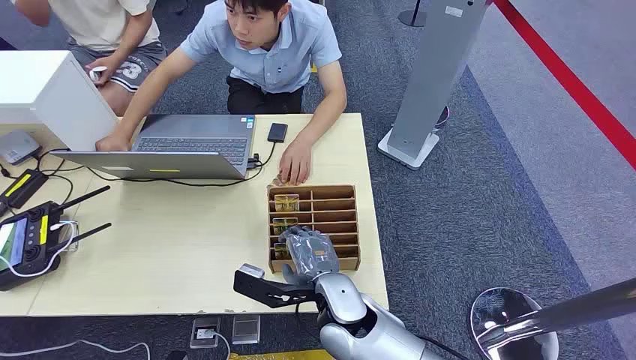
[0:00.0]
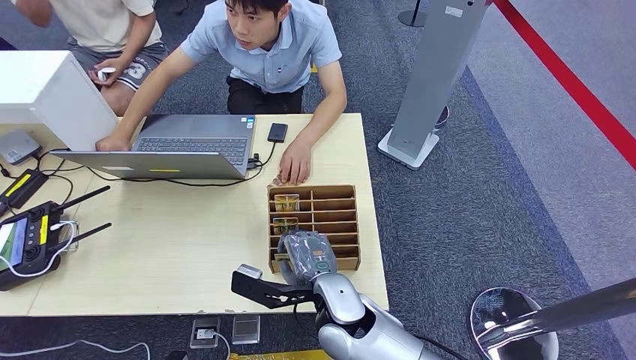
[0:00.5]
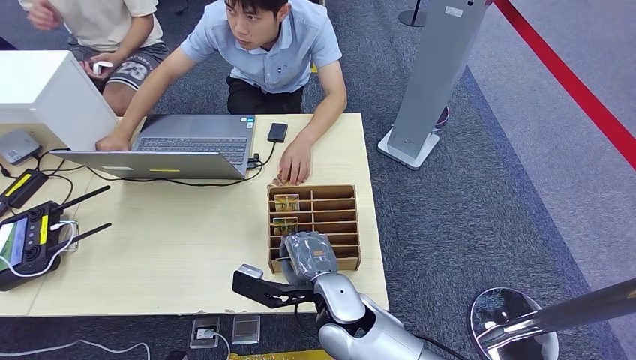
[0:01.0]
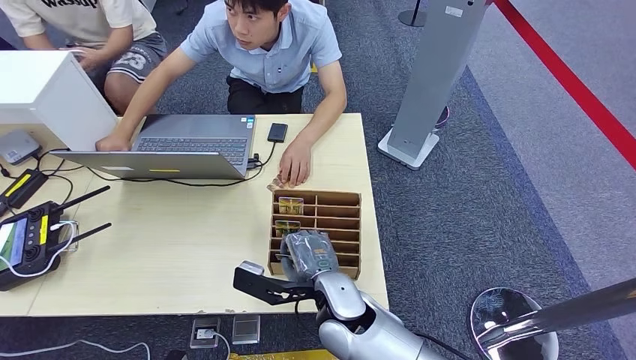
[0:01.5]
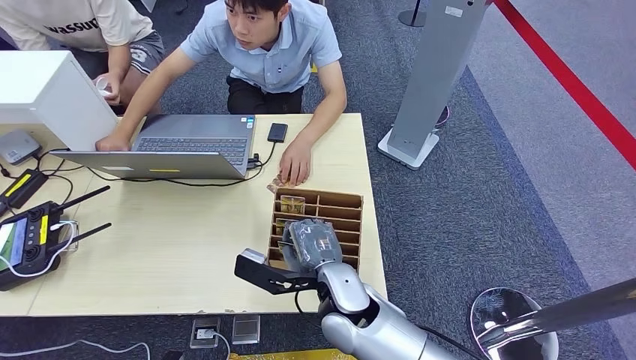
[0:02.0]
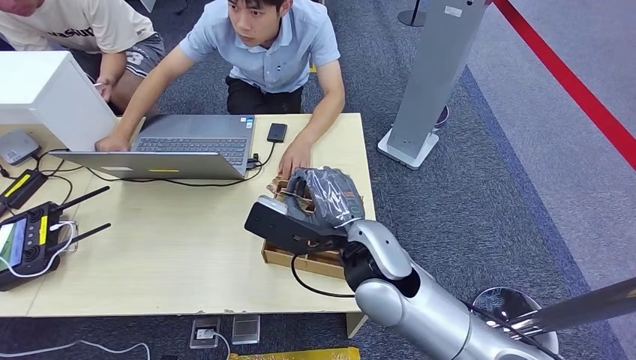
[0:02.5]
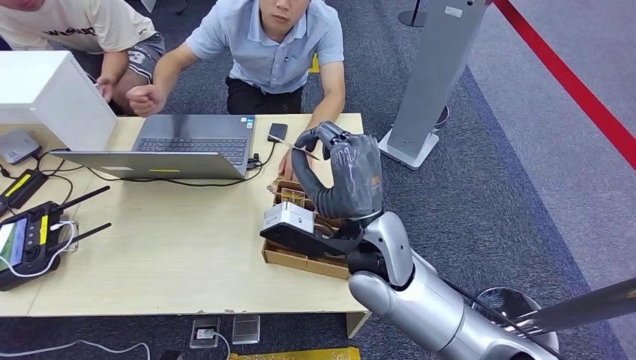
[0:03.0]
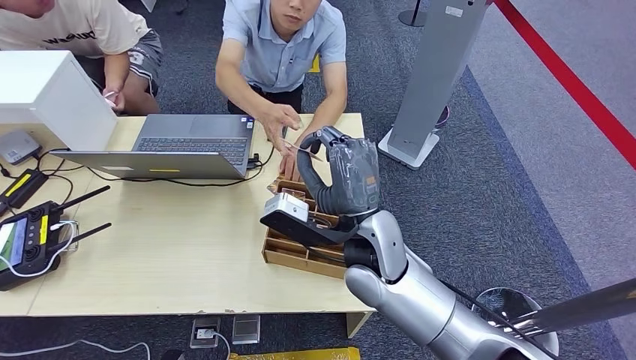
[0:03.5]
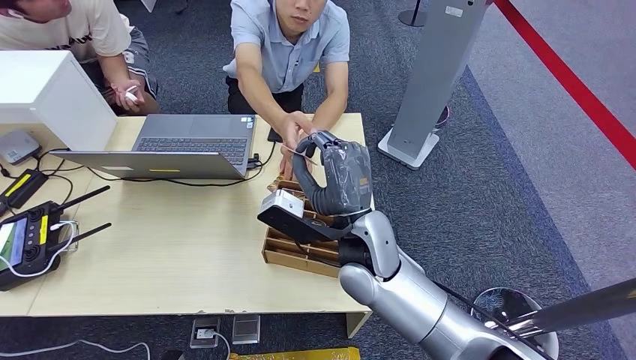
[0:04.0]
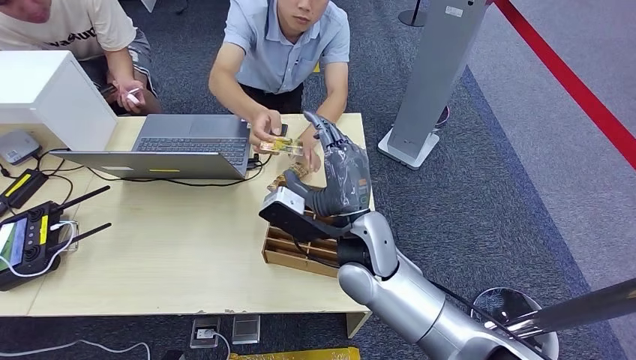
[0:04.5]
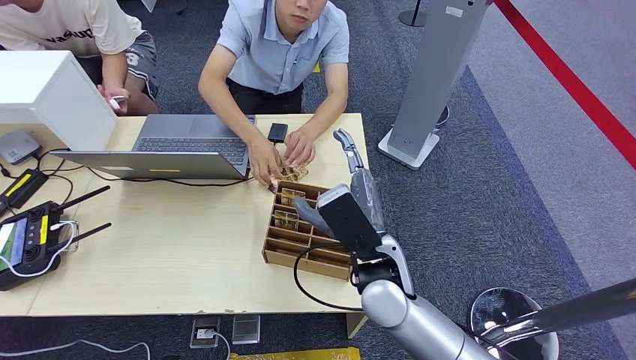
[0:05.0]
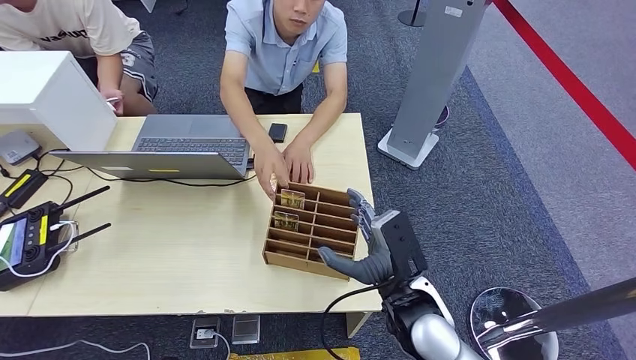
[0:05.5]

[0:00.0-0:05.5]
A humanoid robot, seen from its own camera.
Step, 0:00.0 to 0:02.5: Pick up the room card from the card holder.
Step, 0:03.0 to 0:05.5: Hand the room card to the target.
0:03.5 to 0:05.5: The right hand moves backward, downward and to the right, some 15 cm.
